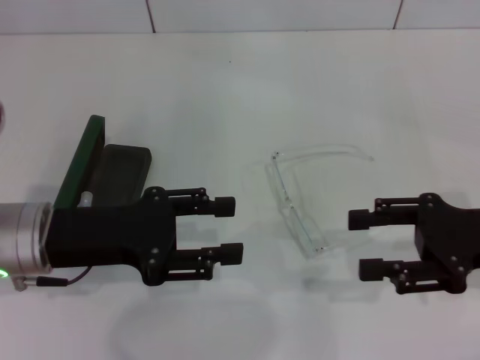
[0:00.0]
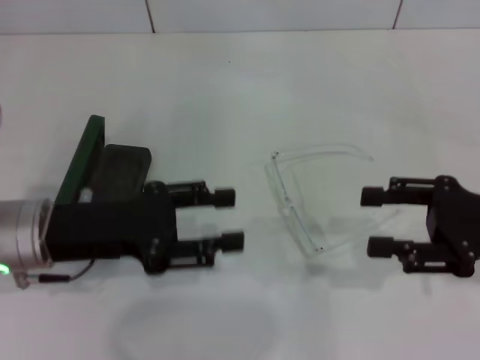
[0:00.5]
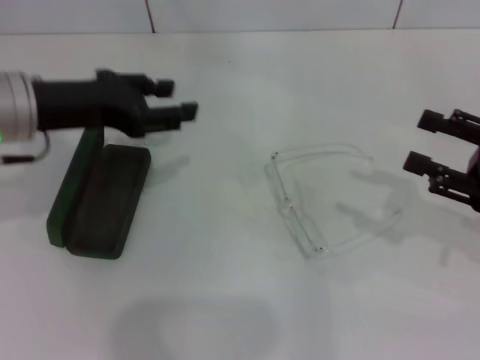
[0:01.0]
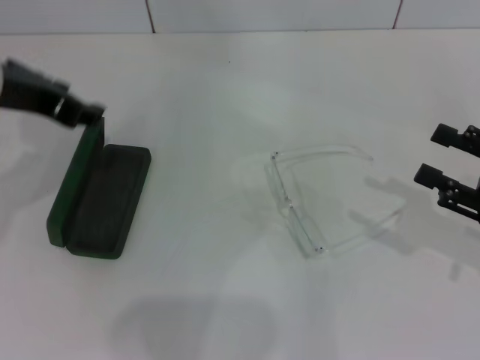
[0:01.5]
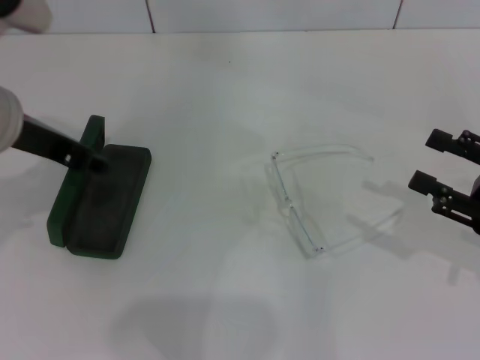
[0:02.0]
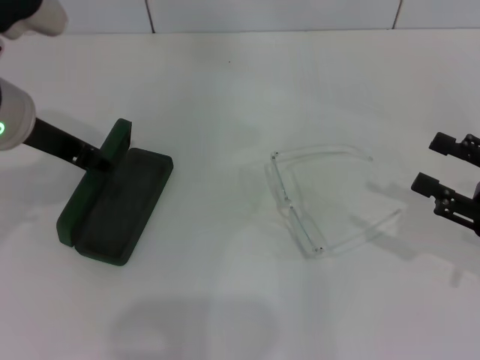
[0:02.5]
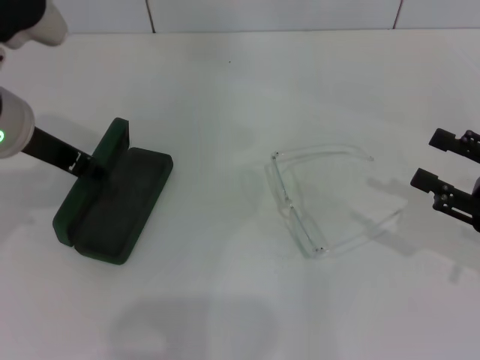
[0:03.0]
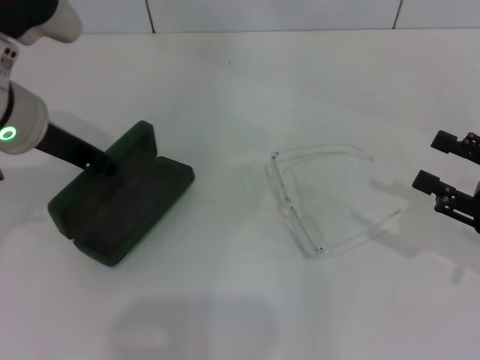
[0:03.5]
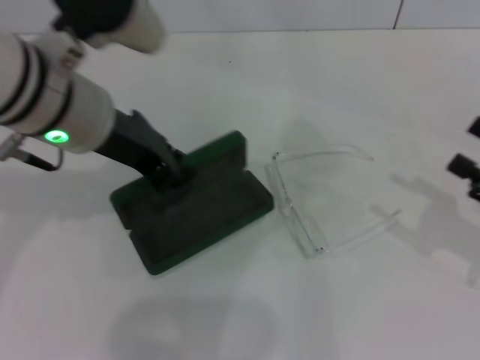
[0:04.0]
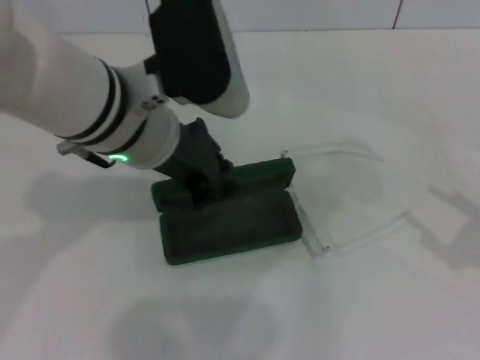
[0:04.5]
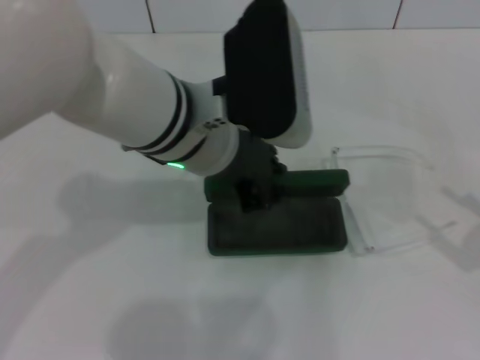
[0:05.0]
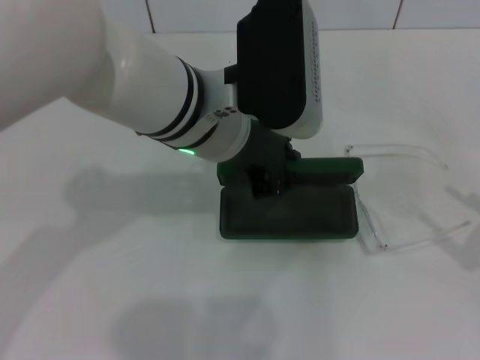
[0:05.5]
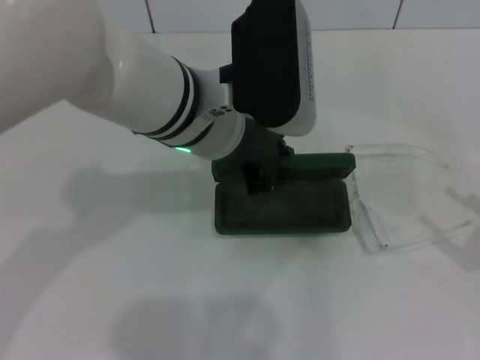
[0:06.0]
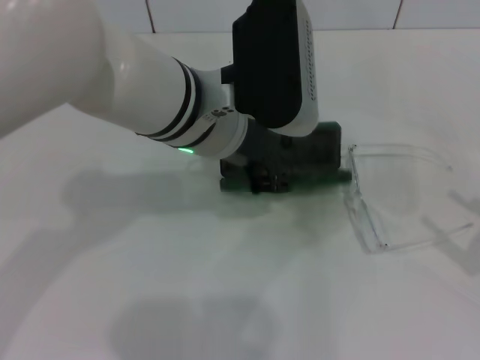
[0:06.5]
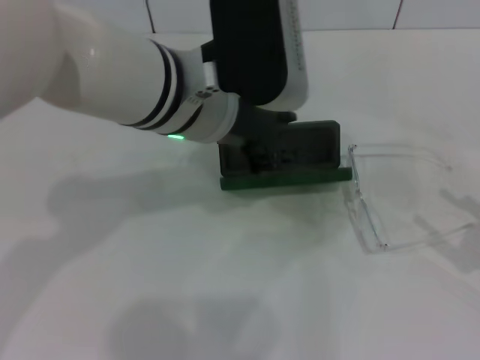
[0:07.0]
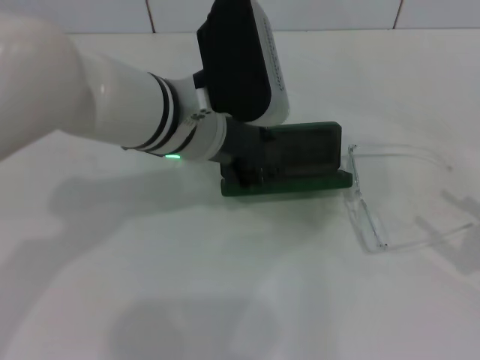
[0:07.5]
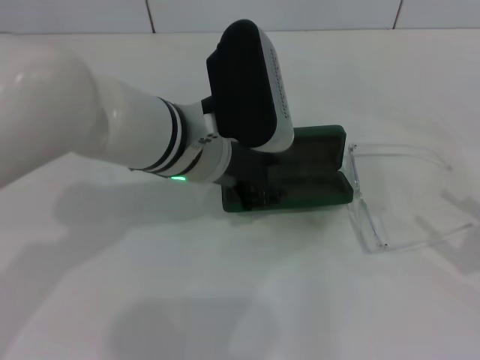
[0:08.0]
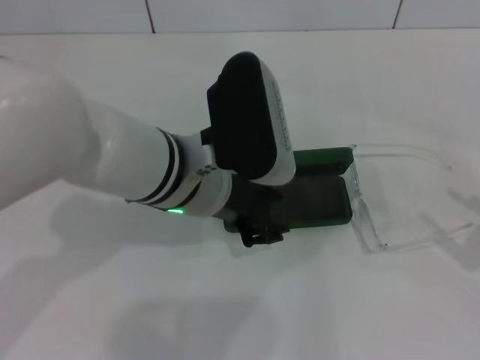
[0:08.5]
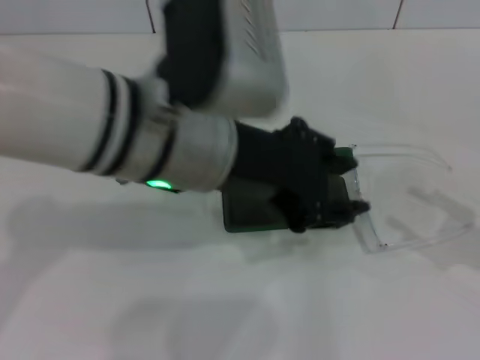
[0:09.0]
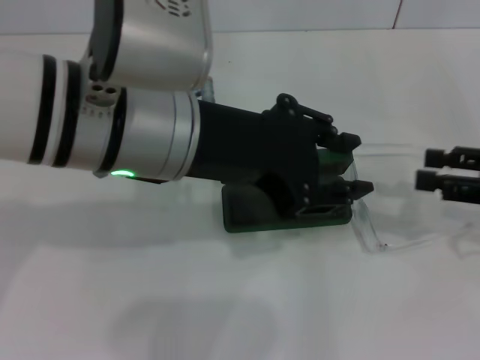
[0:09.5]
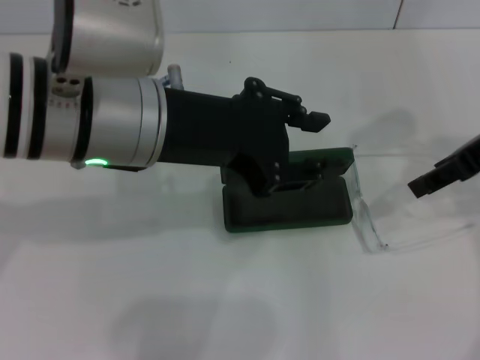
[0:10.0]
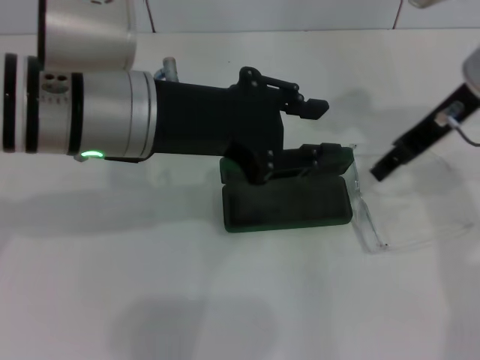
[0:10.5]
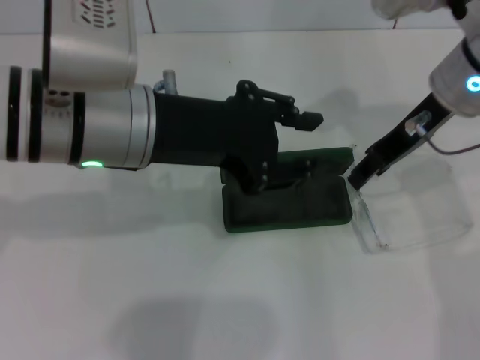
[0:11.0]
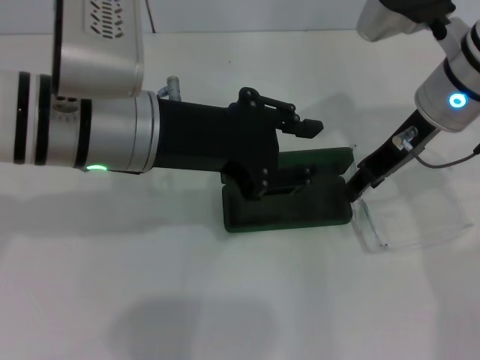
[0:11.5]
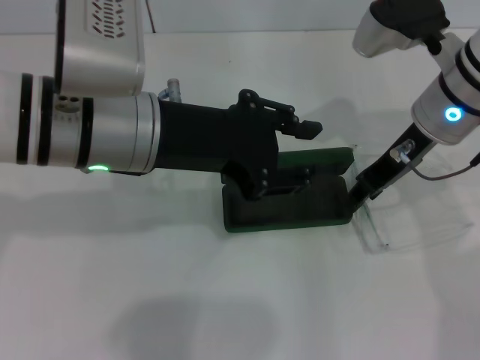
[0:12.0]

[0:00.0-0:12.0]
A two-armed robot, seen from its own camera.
Step, 0.0 to 3.0 s: Grab the glasses case with your left hand.
Step, 3.5 to 6.0 s: Place the glasses case in the center of the table with your left hand.
0.0 to 2.0 s: The left gripper moves upward and forward, some 10 cm. Meanwhile the right gripper moves roughly 5 cm.
2.0 to 4.0 s: The left gripper heads to the right, covering some 5 cm, and closes up.
4.0 to 6.0 s: The right gripper shifts approximately 5 cm backward. Meanwhile the left gripper goes some 10 cm to the right.
6.0 to 8.0 s: The left gripper opens up.
8.0 to 10.0 s: The left gripper moves upward and to the left, some 10 cm; the right gripper is displaced upward, forward and to the left by approximately 25 cm.
10.0 to 12.0 s: The right gripper goes approximately 10 cm to the left, downward and forward.

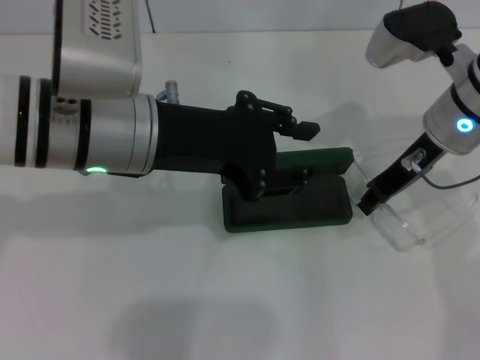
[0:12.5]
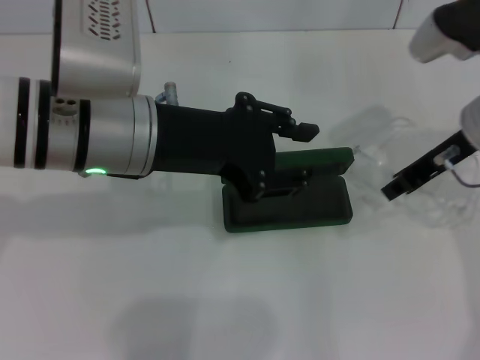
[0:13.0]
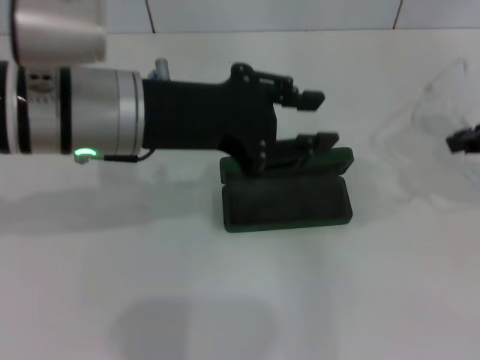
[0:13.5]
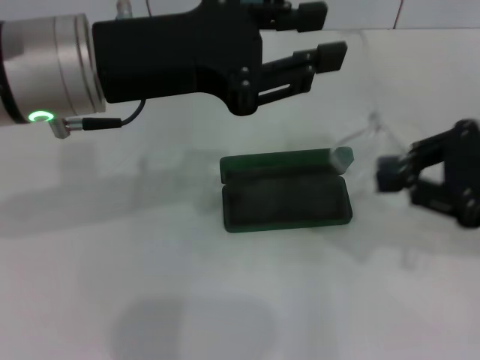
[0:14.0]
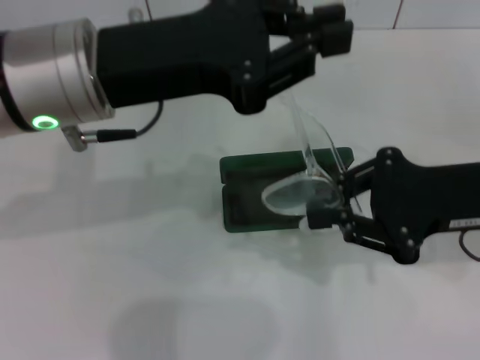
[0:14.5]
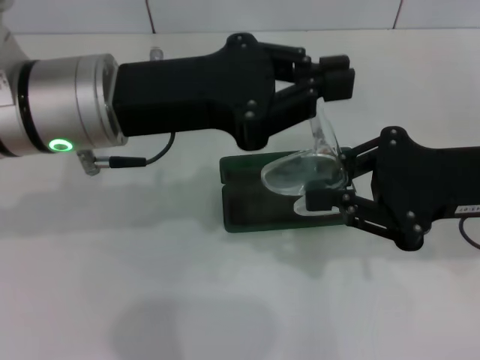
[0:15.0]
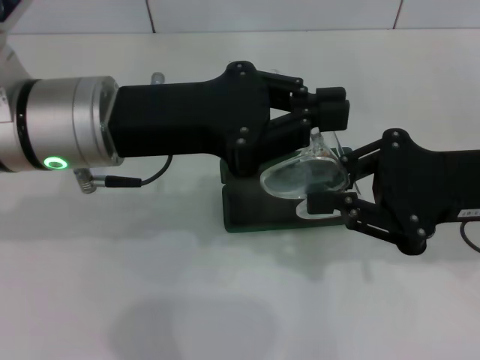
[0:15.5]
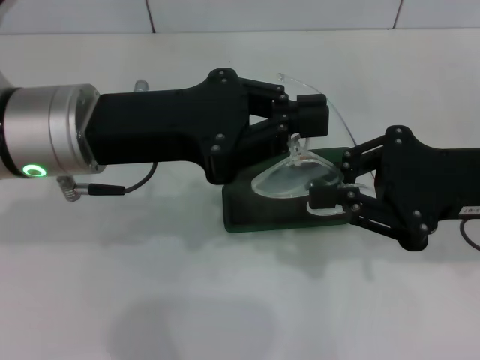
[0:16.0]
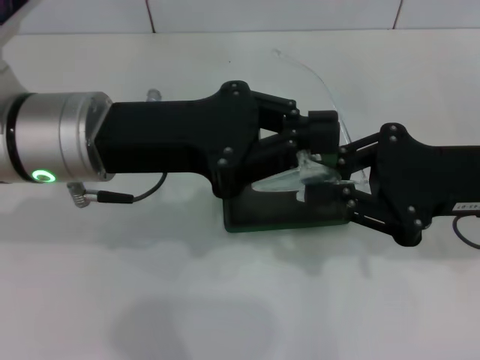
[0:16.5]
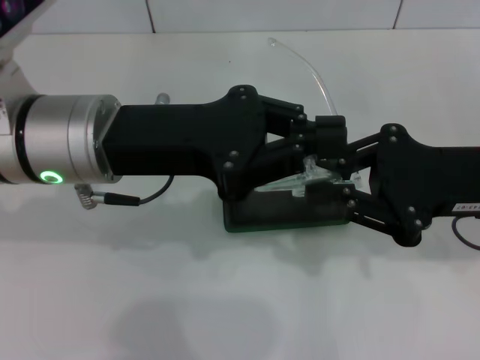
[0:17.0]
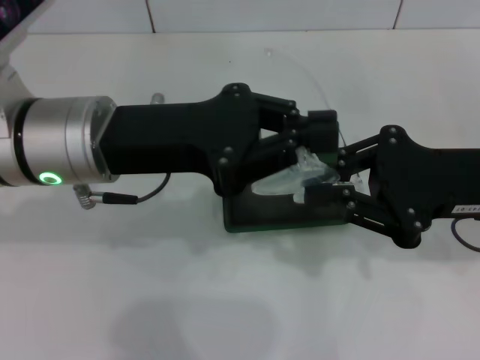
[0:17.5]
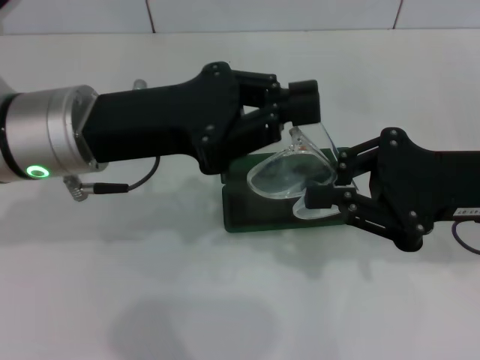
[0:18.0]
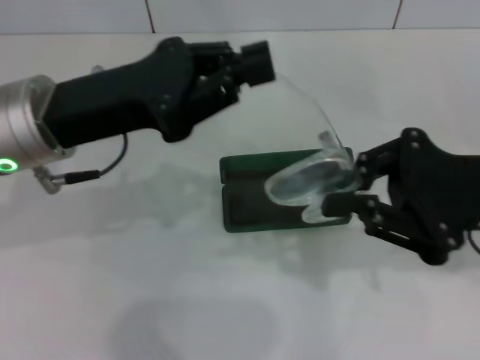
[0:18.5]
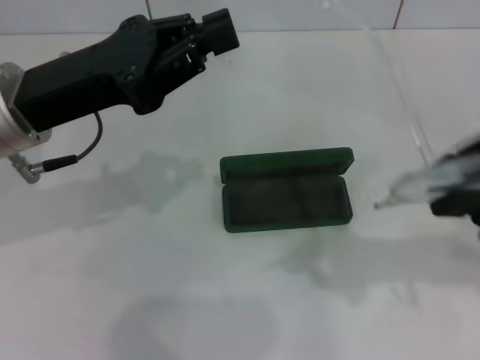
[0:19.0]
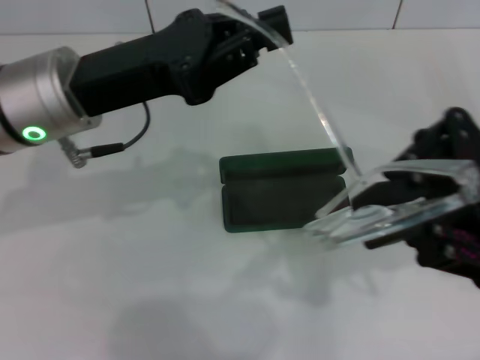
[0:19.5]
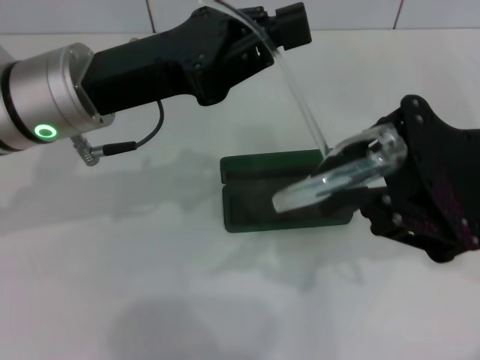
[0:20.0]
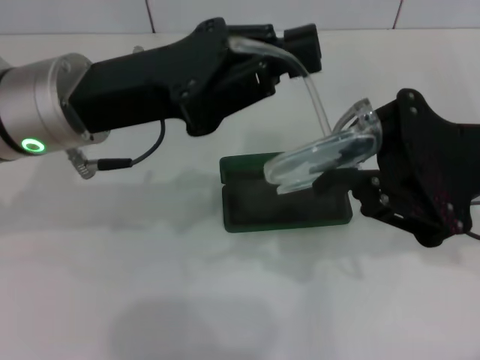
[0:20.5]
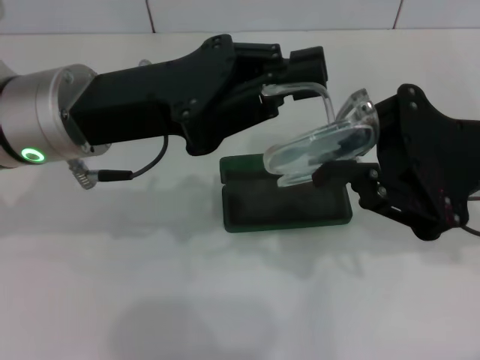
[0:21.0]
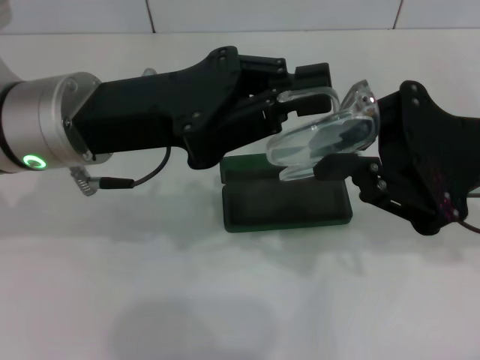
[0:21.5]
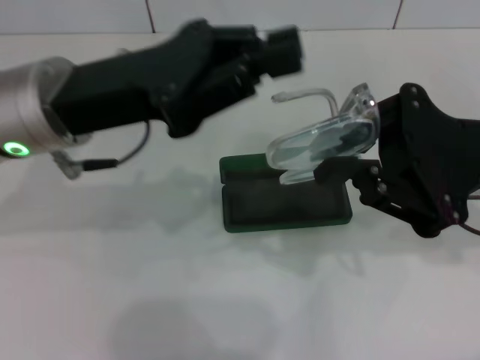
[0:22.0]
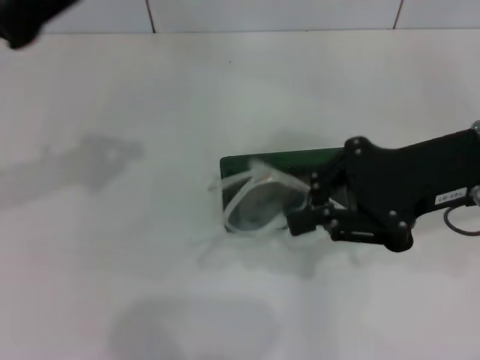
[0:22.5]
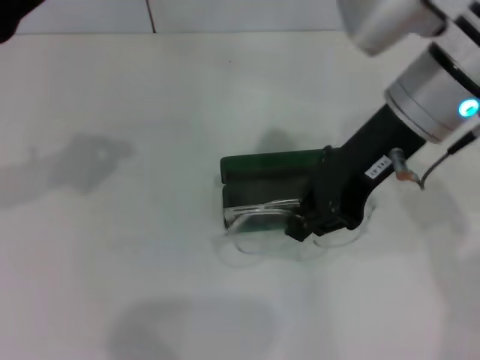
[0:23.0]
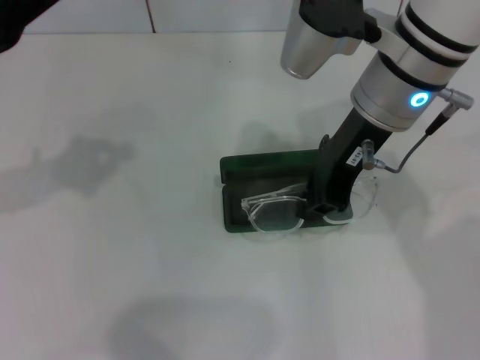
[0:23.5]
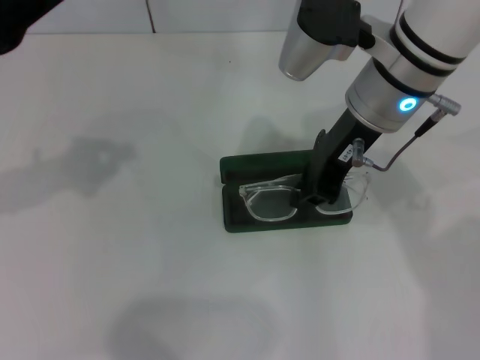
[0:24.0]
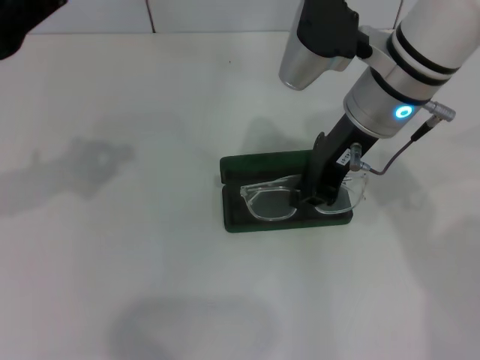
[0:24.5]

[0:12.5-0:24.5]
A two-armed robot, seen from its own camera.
Step, 13.0 to 21.5 s: Fold the frame with your left hand.
12.5 to 14.5 s: The left gripper closes its fingers. Meanwhile the right gripper is displaced backward by approximately 10 cm.
20.5 to 22.5 s: The left gripper is displaced to the left by approximately 10 cm.
22.5 to 24.5 s: The right gripper is displaced to the left and forward by about 15 cm.

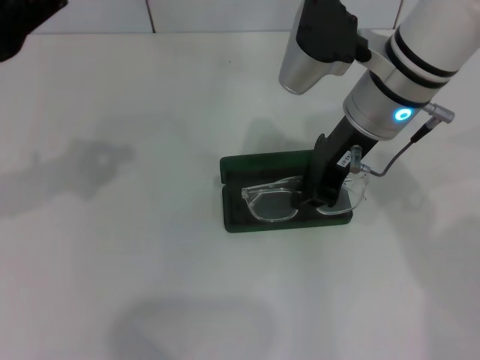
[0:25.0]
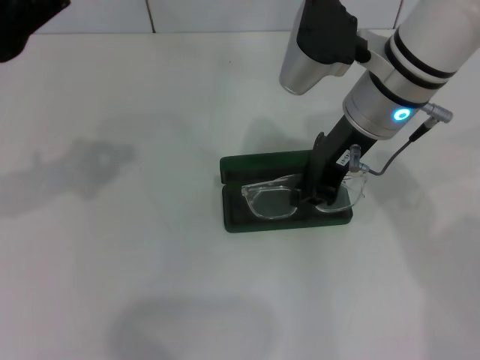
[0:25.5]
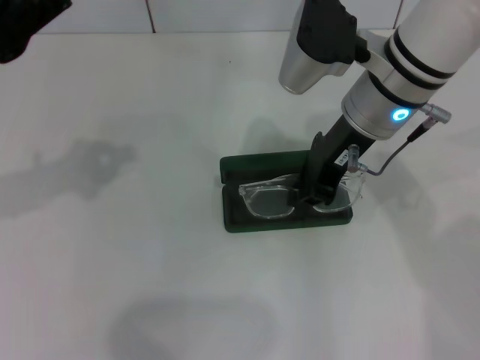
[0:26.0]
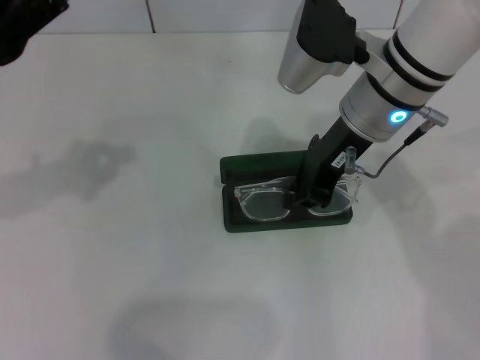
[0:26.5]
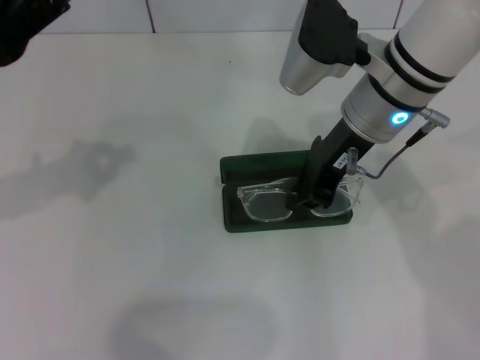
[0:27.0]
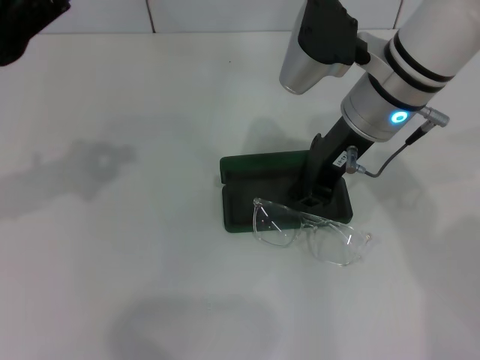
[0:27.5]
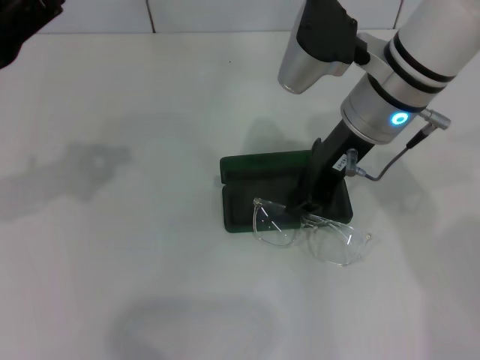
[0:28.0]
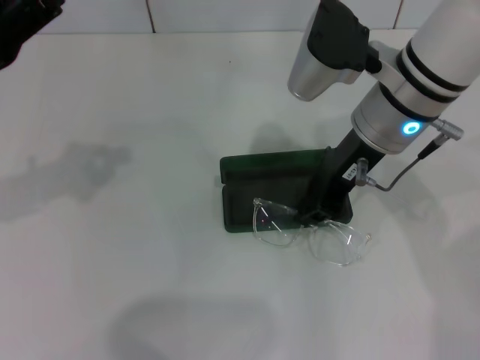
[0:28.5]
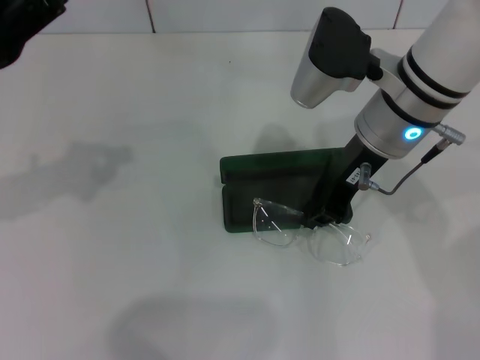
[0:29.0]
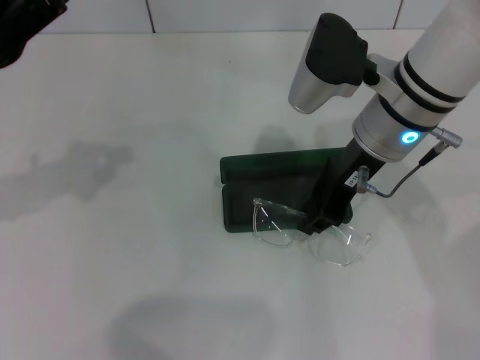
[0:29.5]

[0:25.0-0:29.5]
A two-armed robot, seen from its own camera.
25.0 to 27.0 s: Both grippers stay put.
27.0 to 29.5 s: The grippers stay close to where they were, moving slightly.
